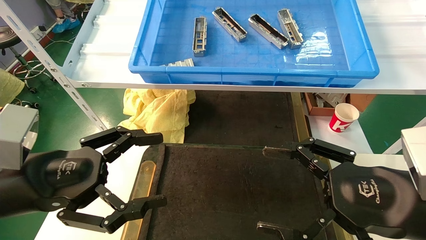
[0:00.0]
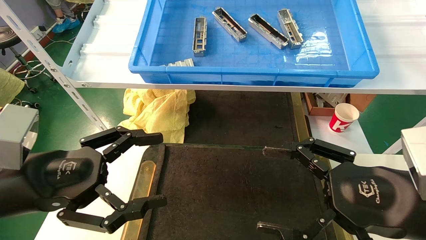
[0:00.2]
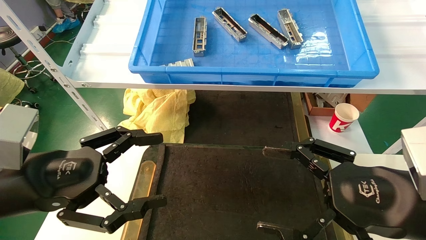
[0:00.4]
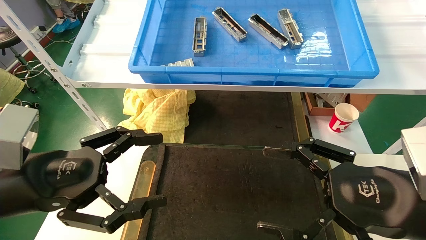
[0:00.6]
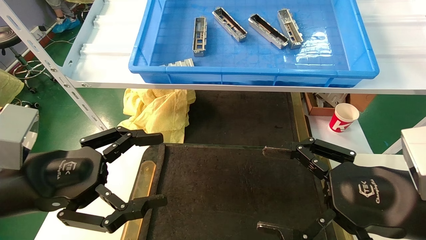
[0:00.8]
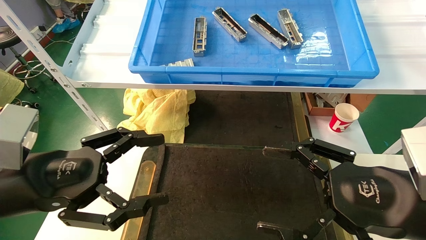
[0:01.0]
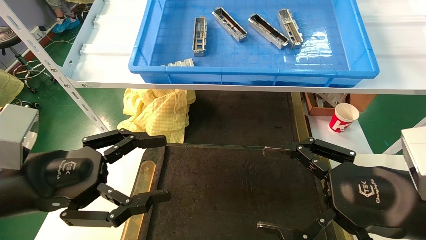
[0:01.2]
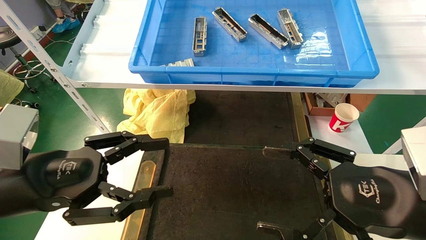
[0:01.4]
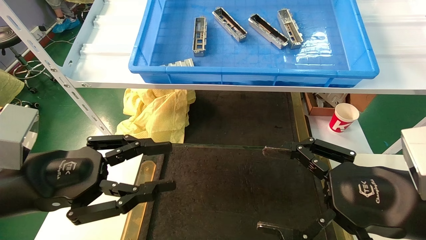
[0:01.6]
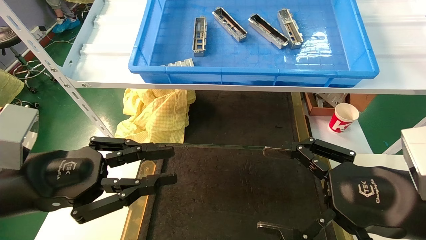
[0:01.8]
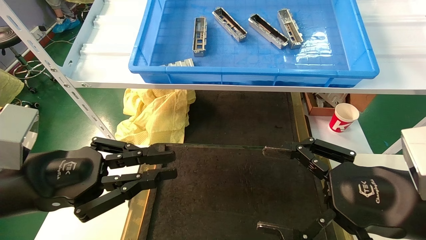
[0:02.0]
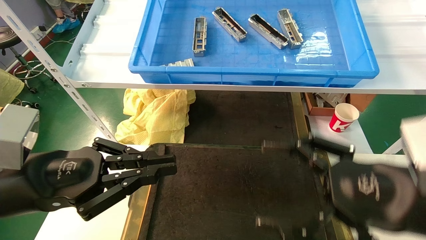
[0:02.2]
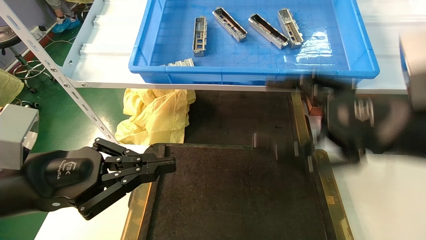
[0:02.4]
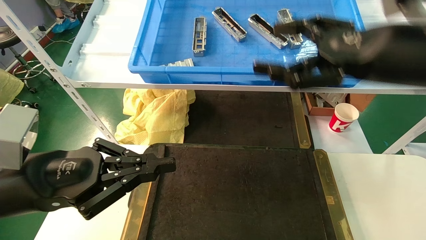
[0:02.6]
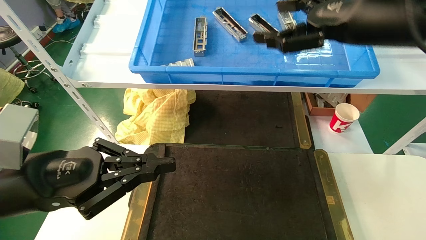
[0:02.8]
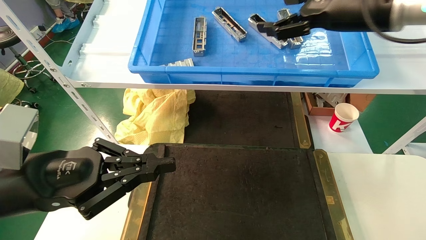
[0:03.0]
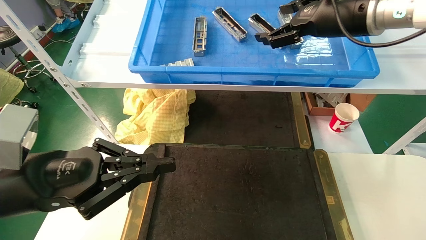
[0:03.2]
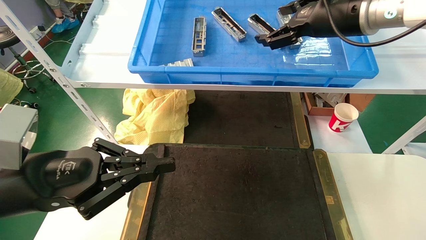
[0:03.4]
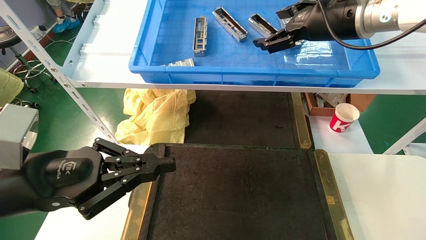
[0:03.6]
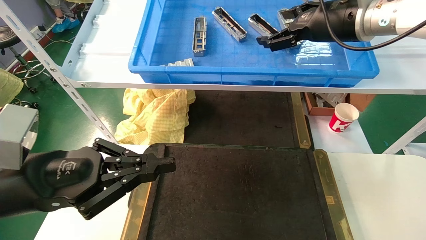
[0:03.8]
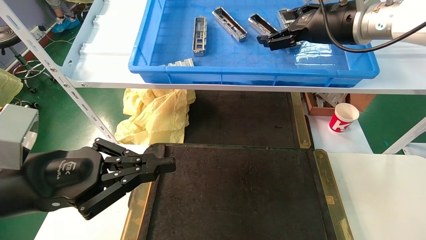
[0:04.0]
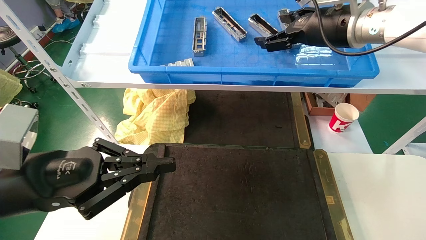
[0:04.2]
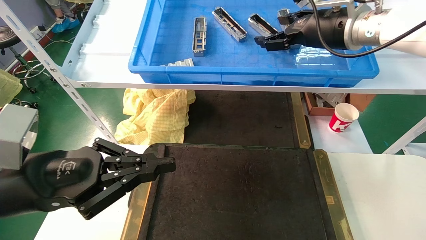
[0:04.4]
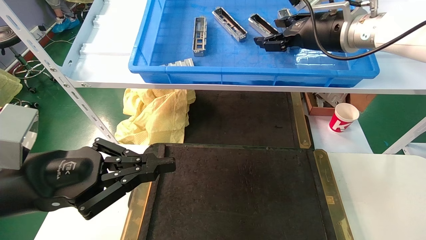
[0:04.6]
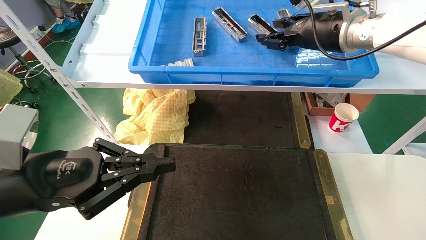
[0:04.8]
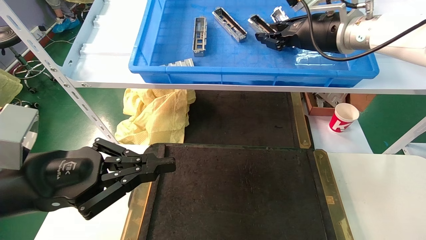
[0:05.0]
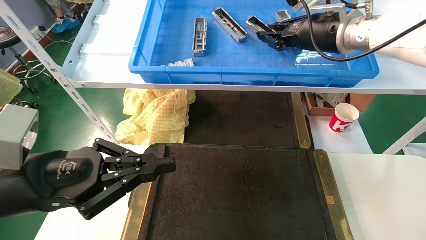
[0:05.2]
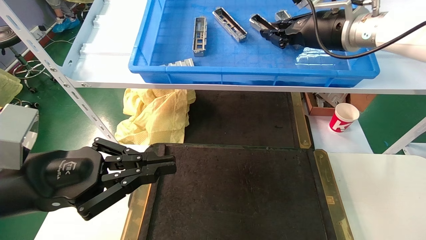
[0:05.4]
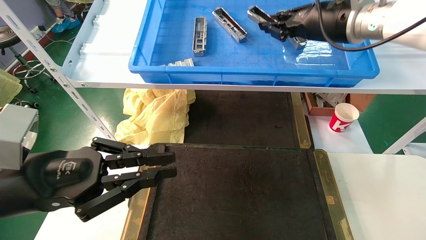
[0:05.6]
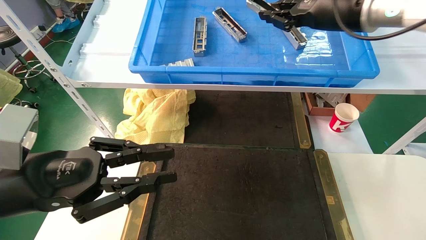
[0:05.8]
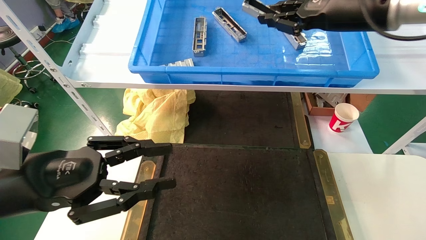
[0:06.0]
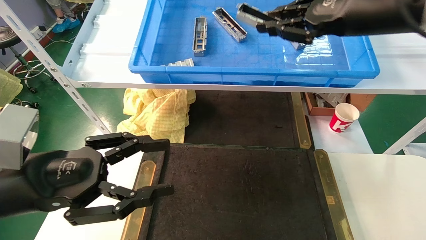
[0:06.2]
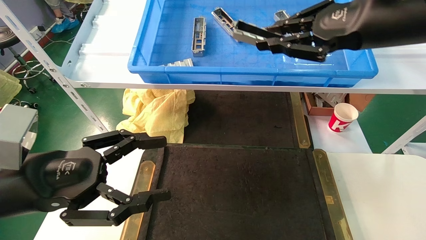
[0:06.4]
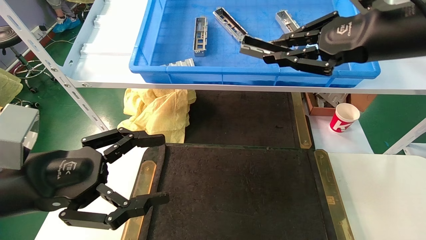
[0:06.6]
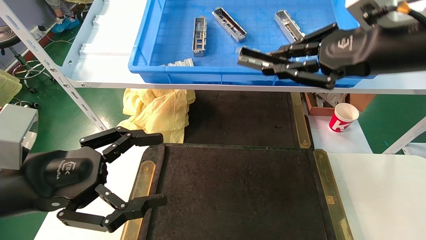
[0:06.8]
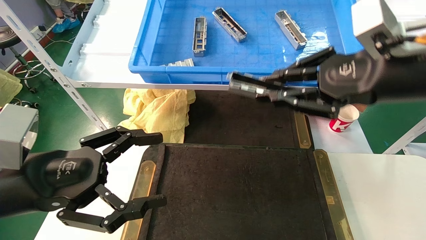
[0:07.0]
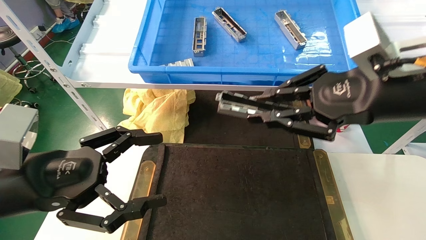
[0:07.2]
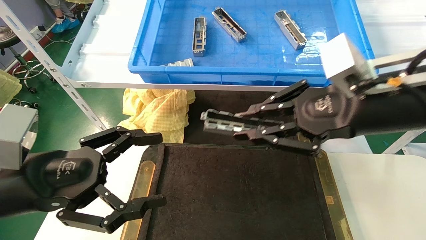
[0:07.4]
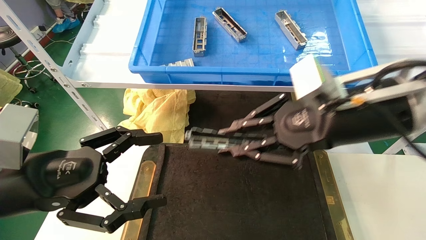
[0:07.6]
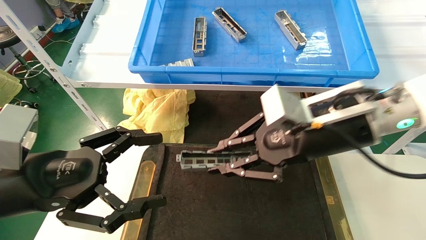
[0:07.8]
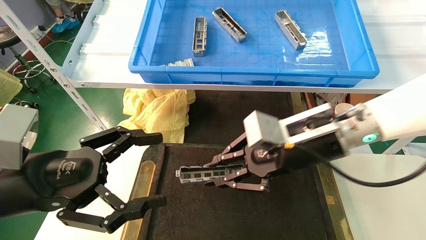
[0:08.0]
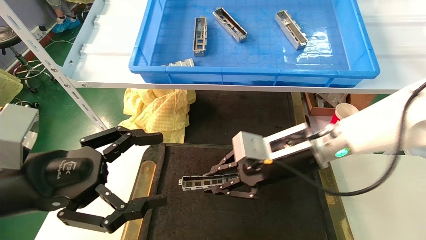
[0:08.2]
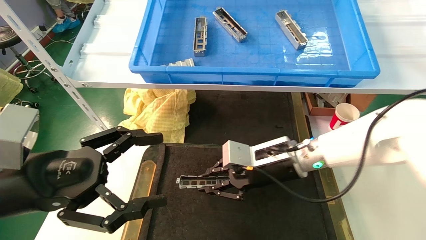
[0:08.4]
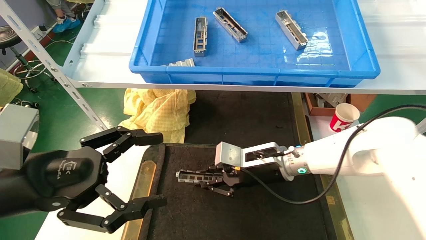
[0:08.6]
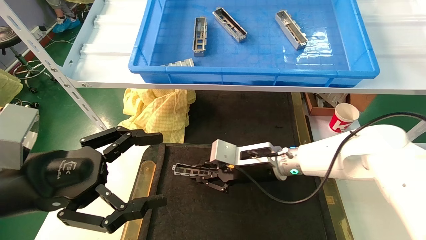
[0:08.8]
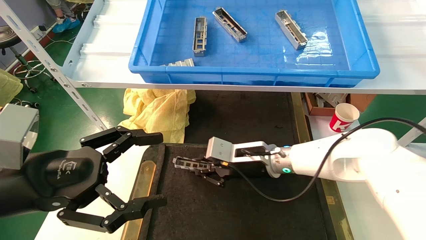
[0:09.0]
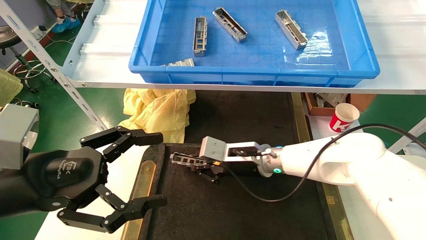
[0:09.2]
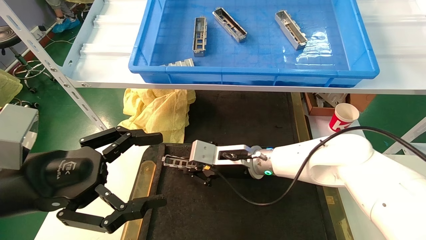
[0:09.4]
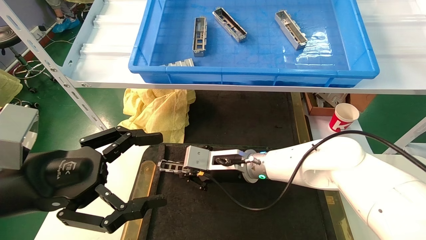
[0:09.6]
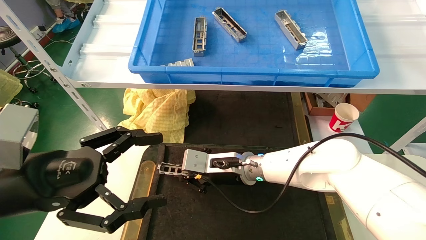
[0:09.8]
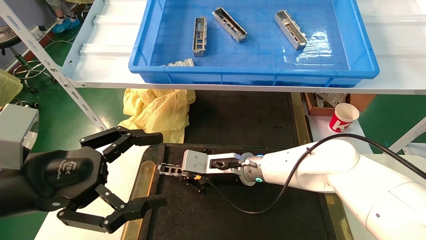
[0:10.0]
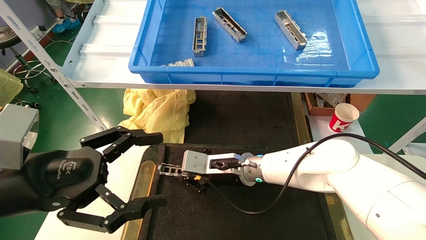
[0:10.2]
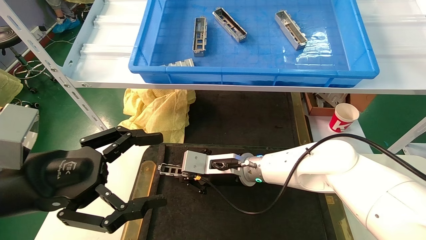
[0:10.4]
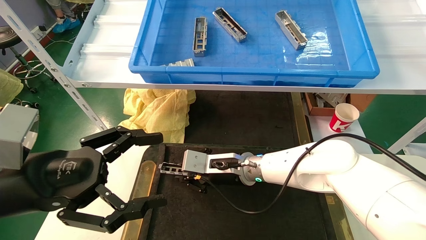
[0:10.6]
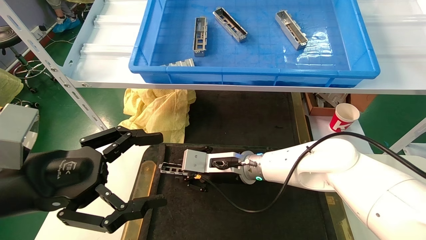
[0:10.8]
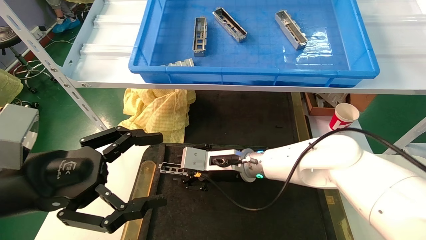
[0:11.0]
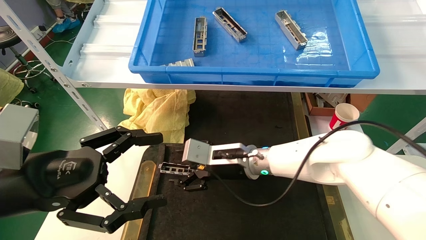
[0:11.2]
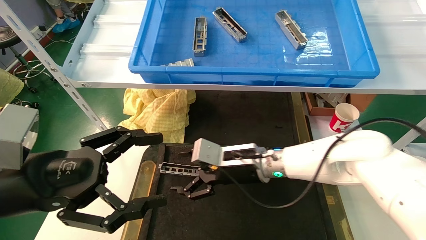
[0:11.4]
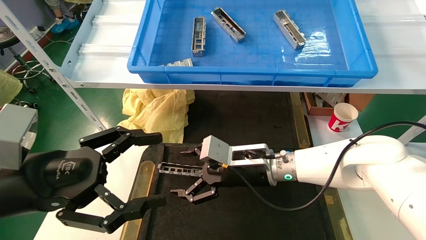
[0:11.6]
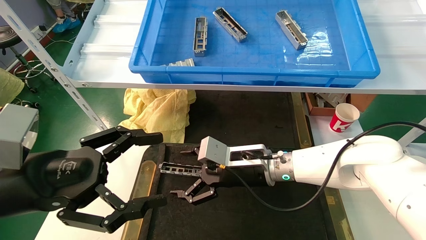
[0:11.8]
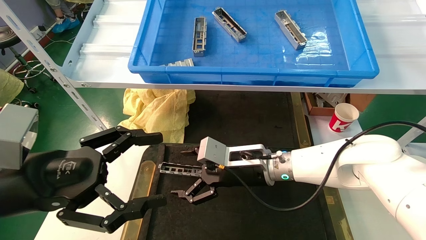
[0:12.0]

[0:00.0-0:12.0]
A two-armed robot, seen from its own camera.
Task of the whole recording: grasp the part and place them on the black container.
Step, 0:02.6 to 0:06.0: Pick up and lift the front USB bracket from the feeding area.
Step, 0:06.2 to 0:11.0: Place the front USB bracket into the box.
0:00.0 to 0:01.6: The left gripper closes.
0:01.6 to 0:03.0: The right gripper is displaced upward and forward by roughly 25 cm. Meanwhile the left gripper closes its fingers.
0:03.0 to 0:04.4: The right gripper is displaced forward by approximately 5 cm.
0:04.4 to 0:06.0: The right gripper goes approximately 5 cm backward, and closes up.
0:06.0 to 0:07.6: The right gripper moves downward and backward, roughly 15 cm, while the left gripper opens up.
0:07.6 to 0:09.0: The right gripper goes about 25 cm downward, forward and to the left.
0:09.0 to 0:10.4: The right gripper ends up approximately 5 cm from where it was.
0:10.4 to 0:12.0: The right gripper changes place by about 5 cm, and opens its fingers.

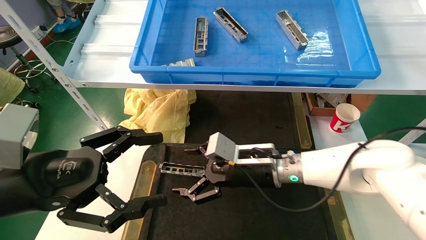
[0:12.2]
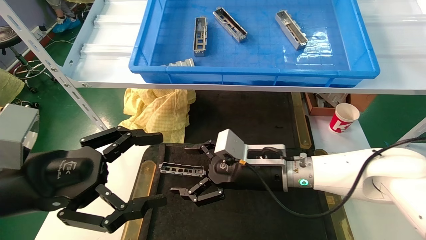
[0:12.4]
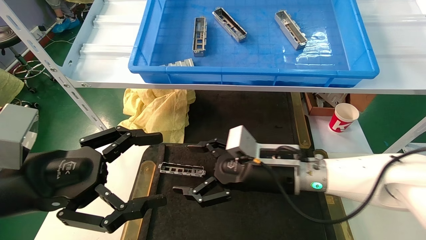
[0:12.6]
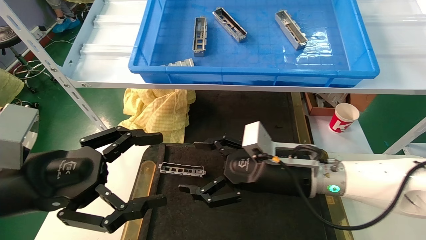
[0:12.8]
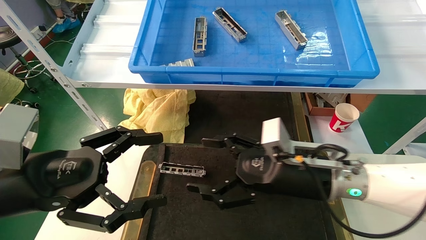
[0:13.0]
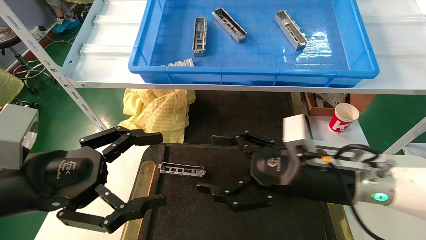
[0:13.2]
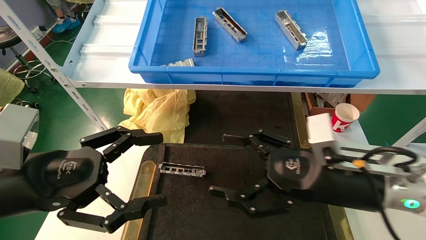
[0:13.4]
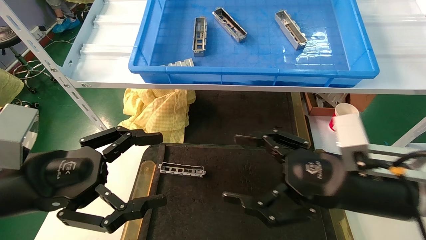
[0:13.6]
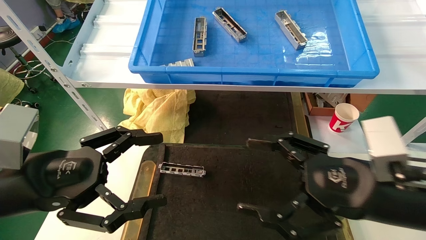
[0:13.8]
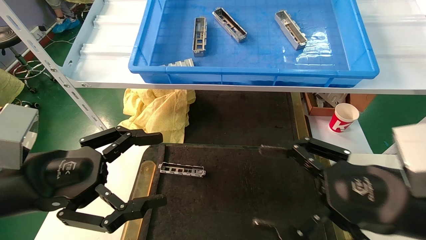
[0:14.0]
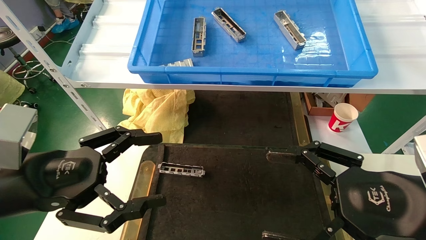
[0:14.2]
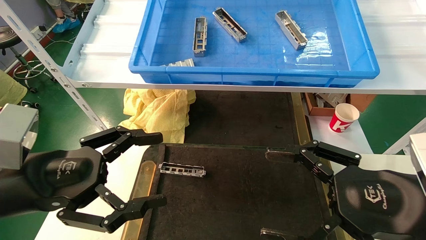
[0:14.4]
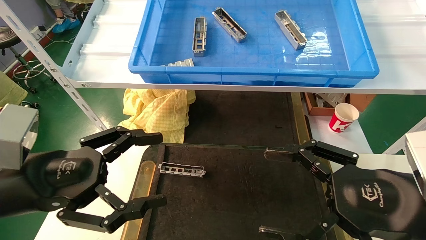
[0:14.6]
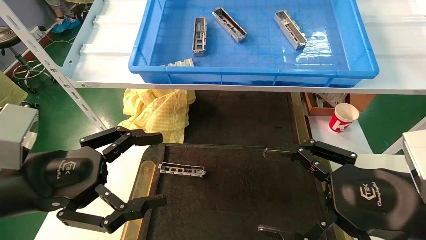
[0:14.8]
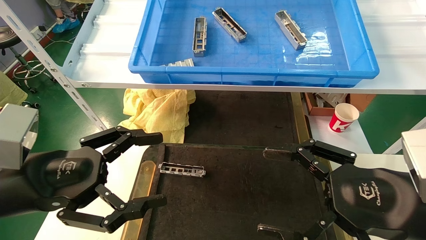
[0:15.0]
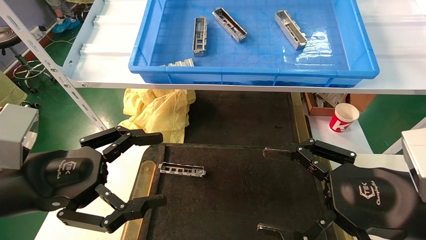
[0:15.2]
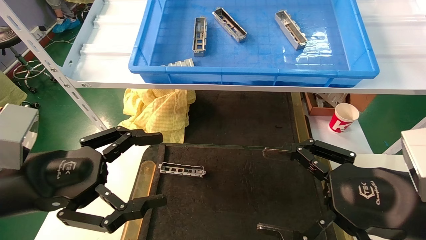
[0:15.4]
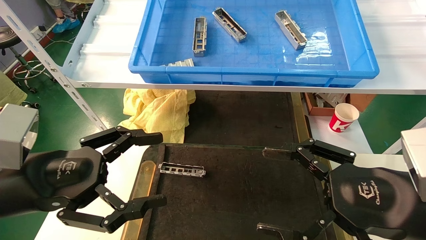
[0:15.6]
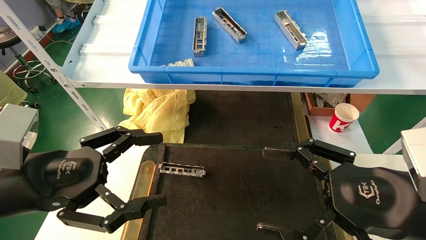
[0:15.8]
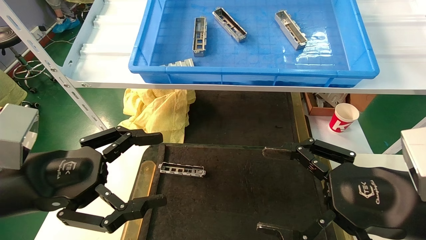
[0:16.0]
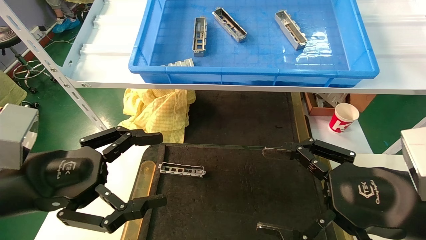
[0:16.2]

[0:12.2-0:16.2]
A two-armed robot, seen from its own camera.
Task of the whole recording: grasp the part and place them on the black container.
0:12.2 to 0:13.6: The right gripper travels to the right and backward by approximately 20 cm.
0:13.6 to 0:14.8: The right gripper goes roughly 5 cm backward.
0:14.8 to 0:16.2: The two grippers keep their place.
